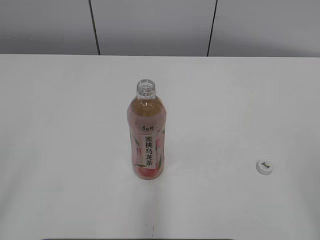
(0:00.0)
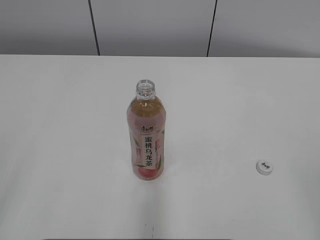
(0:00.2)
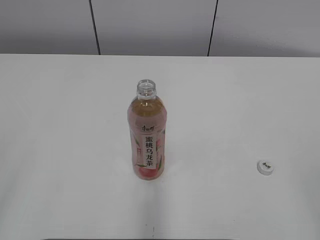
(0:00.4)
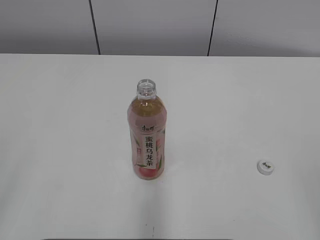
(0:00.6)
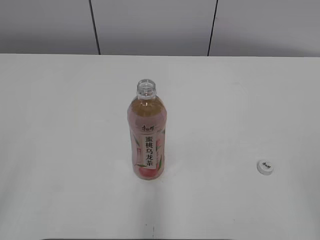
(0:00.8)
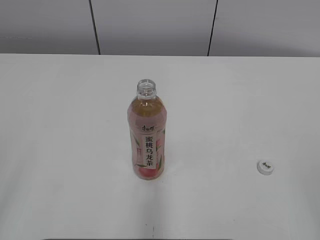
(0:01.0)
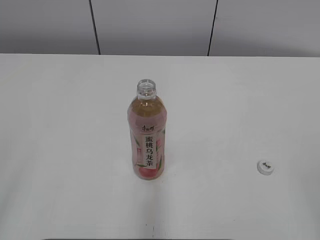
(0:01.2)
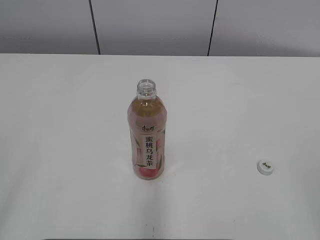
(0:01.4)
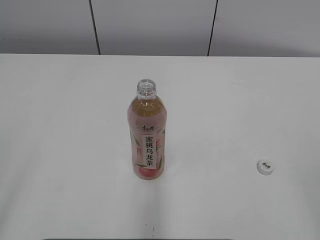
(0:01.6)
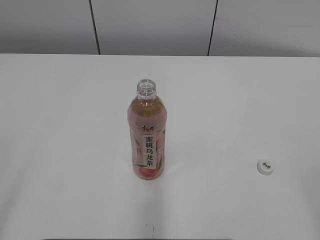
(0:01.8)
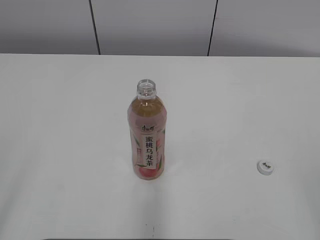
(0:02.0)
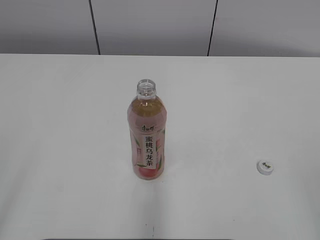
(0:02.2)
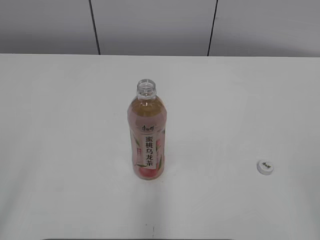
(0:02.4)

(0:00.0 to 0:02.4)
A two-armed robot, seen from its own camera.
0:01.2 - 0:02.4: The two grippers keep their place.

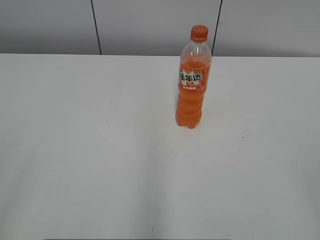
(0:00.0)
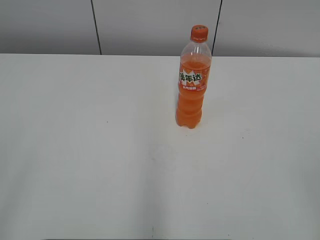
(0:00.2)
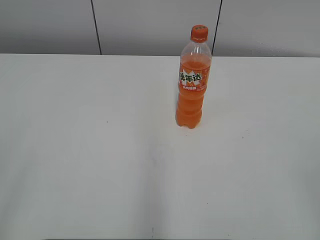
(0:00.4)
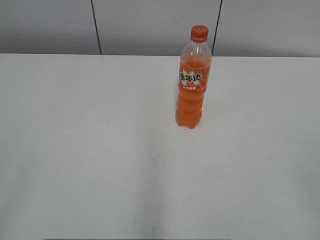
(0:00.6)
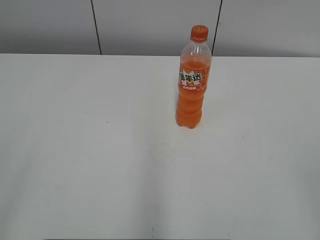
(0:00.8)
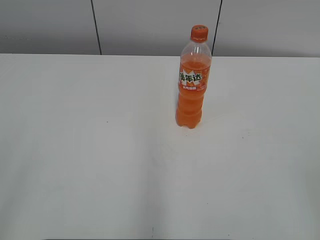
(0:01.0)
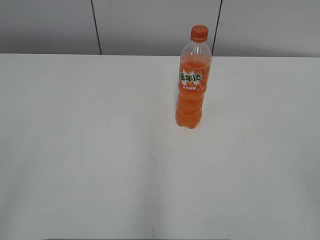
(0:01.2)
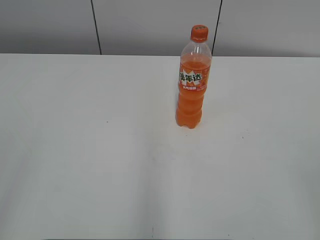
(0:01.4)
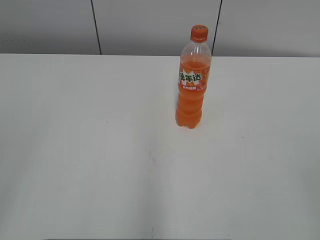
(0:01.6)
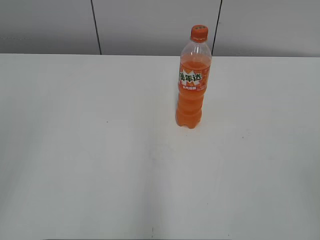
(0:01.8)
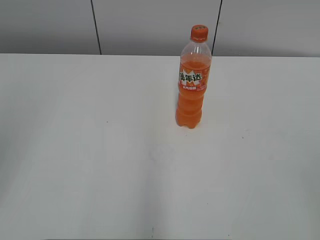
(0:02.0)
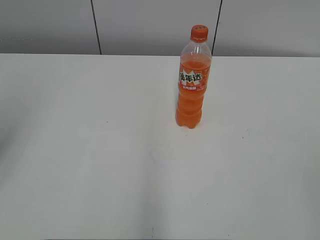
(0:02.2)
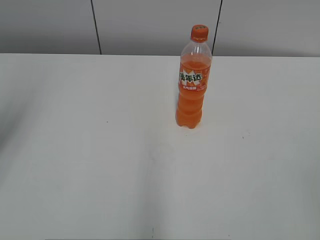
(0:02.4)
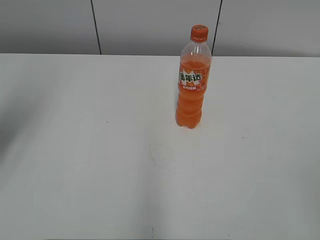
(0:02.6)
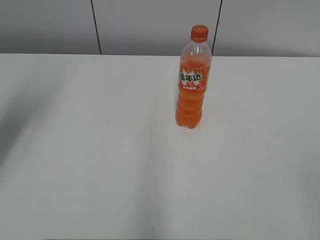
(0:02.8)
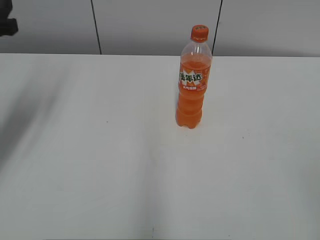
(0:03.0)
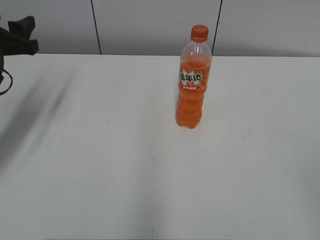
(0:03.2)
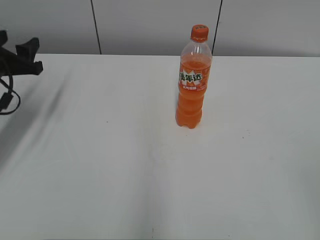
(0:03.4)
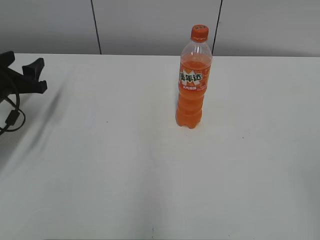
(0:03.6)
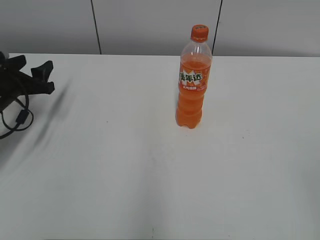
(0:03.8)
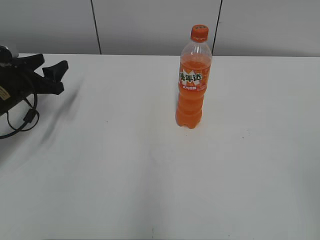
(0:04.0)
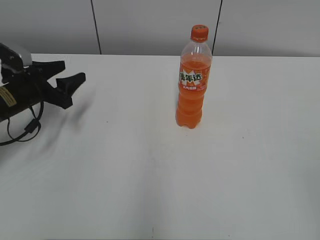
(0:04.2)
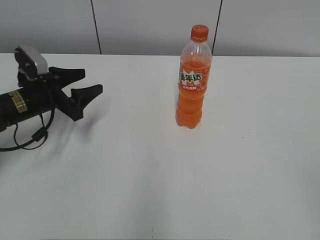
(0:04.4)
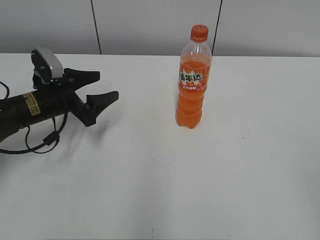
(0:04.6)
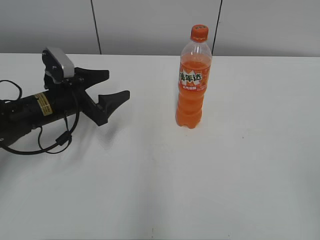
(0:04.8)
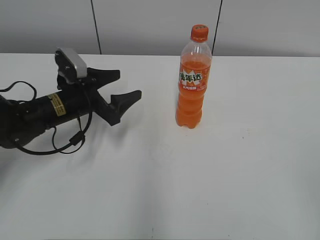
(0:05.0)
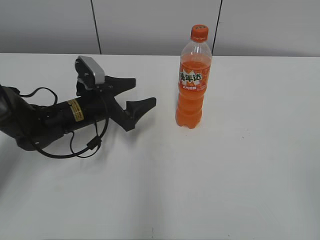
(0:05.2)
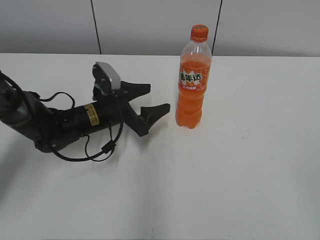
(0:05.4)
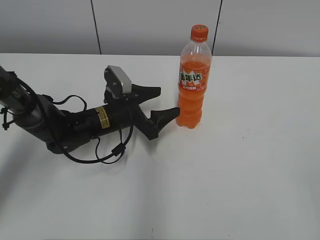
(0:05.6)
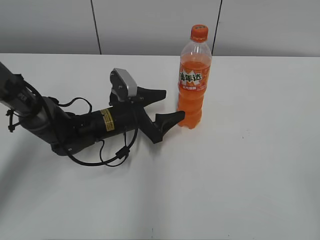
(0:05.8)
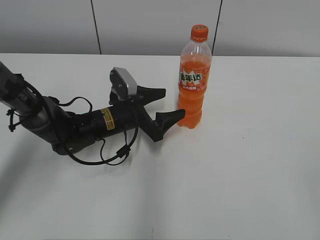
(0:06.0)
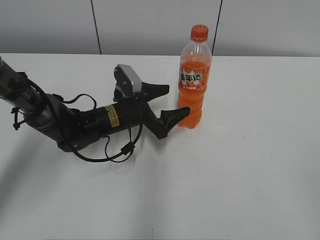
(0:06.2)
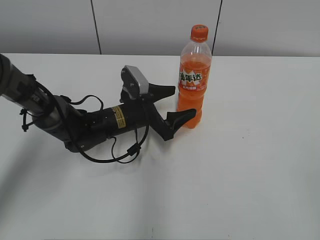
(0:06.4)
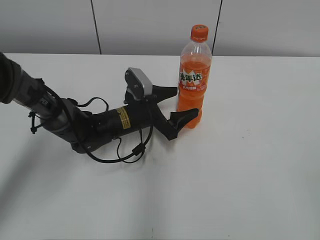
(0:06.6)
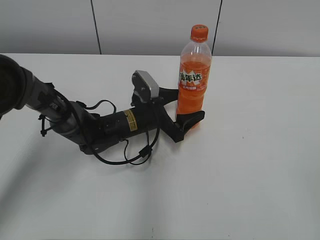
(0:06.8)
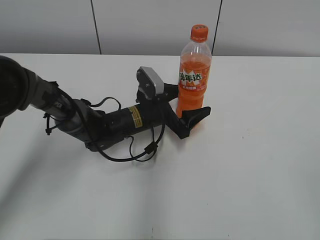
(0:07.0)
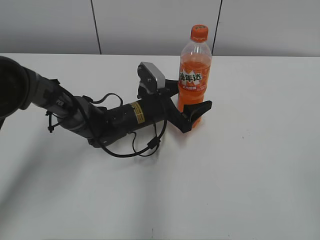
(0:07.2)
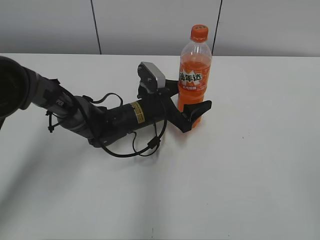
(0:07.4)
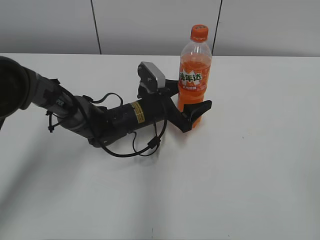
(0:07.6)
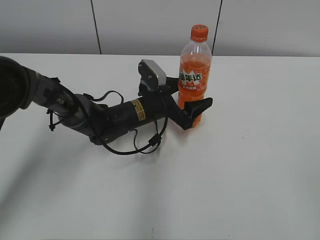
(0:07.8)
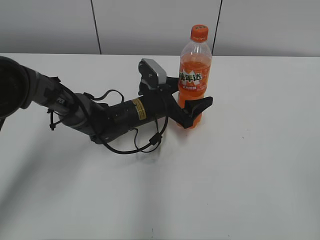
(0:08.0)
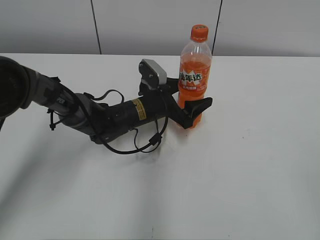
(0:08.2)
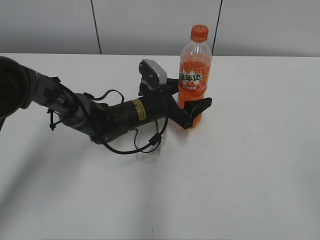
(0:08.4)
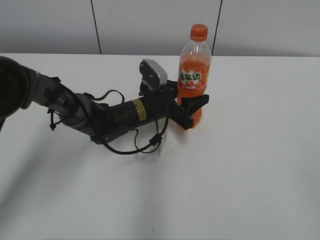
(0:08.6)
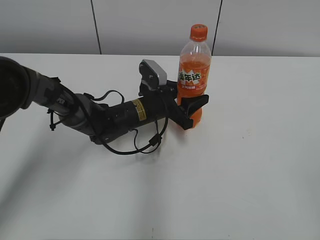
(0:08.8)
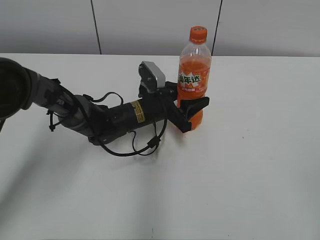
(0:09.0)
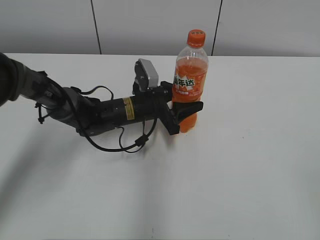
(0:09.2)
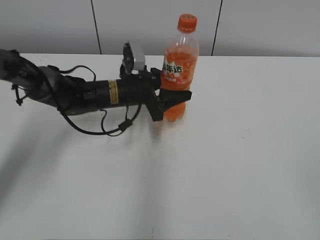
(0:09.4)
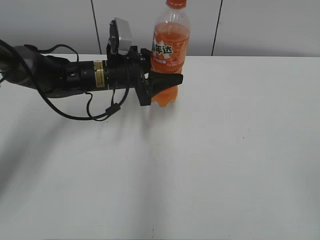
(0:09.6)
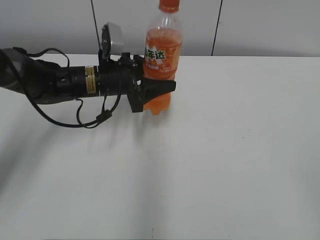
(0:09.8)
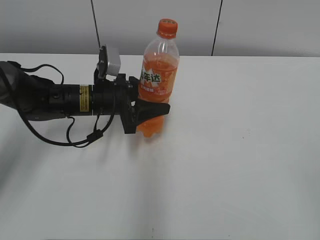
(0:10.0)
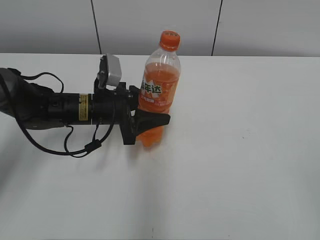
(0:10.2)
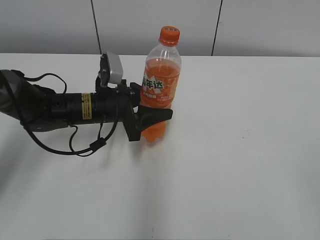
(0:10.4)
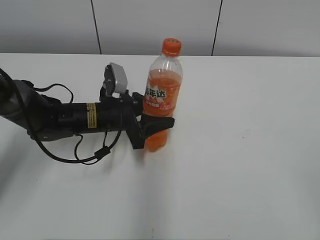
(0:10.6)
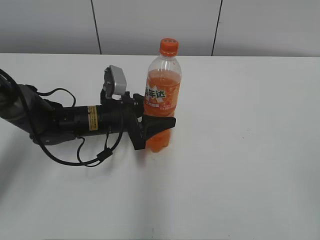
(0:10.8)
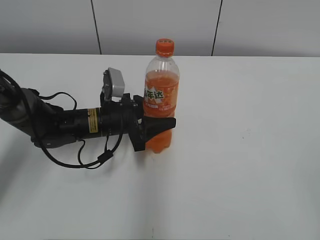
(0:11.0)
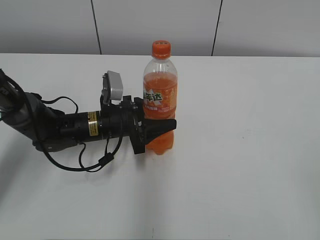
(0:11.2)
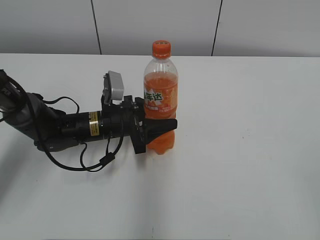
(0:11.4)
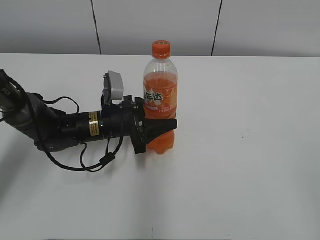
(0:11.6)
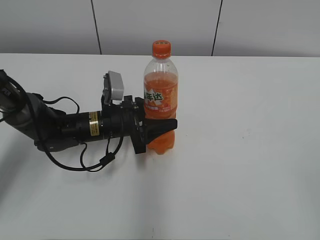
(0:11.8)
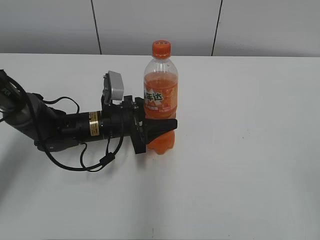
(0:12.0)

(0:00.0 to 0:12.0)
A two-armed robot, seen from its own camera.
Step, 0:00.0 - 0:08.6: Grab the Mirinda with the left hand.
Step, 0:08.8 - 0:11.8: Move the Mirinda from right to left.
0:01.6 - 0:03.0: The left gripper travels forward by roughly 30 cm.
0:03.0 - 0:04.4: The left gripper shifts approximately 15 cm downward.
0:04.4 - 0:06.0: The left gripper moves to the right, roughly 15 cm, and opens its fingers.
0:06.0 - 0:07.6: The left gripper shifts approximately 5 cm to the right.
0:07.6 - 0:09.0: The left gripper closes.
0:09.0 - 0:10.4: The left gripper moves to the left, roughly 10 cm.
0:10.4 - 0:12.0: The grippers stay close to where they were, moving slightly.

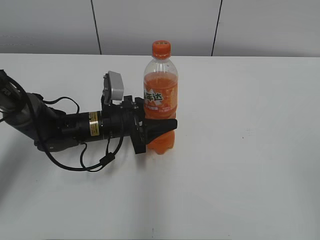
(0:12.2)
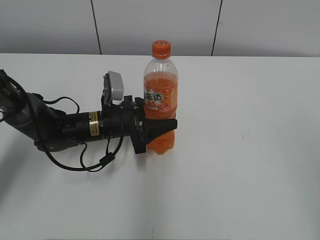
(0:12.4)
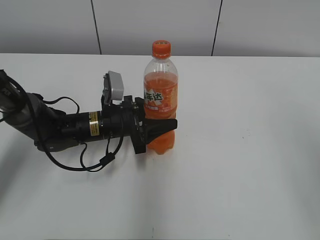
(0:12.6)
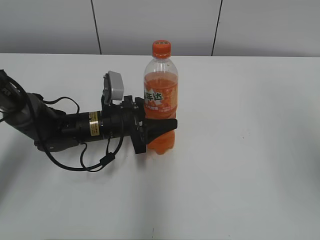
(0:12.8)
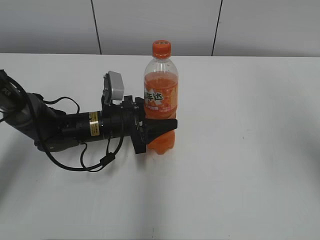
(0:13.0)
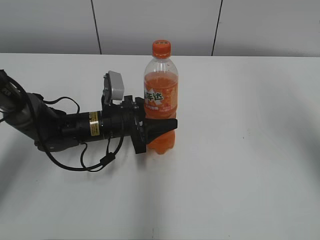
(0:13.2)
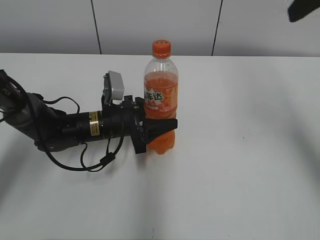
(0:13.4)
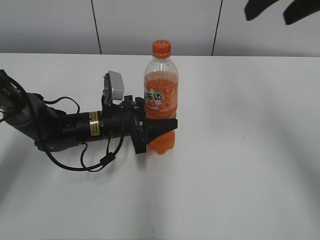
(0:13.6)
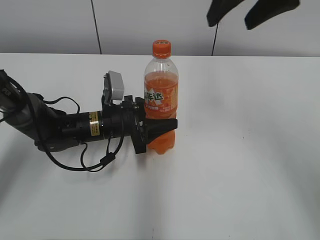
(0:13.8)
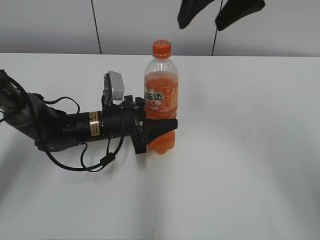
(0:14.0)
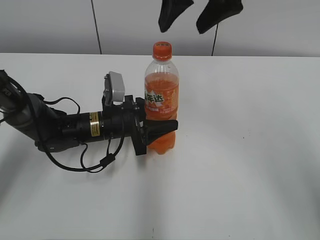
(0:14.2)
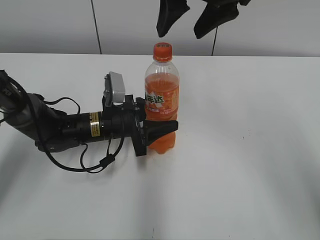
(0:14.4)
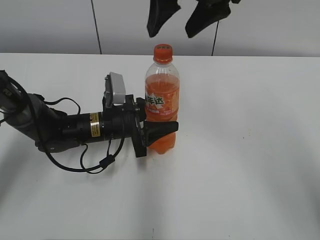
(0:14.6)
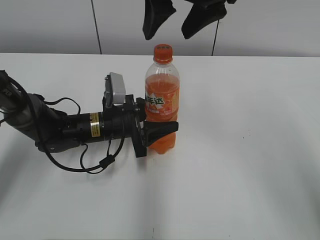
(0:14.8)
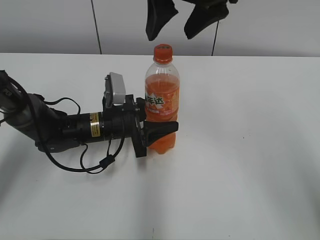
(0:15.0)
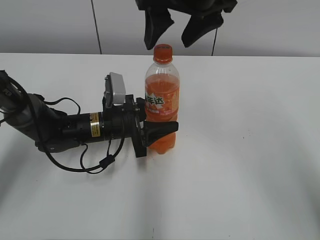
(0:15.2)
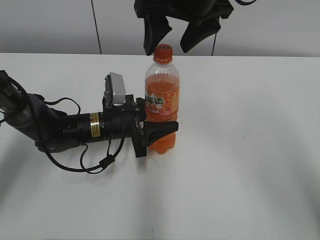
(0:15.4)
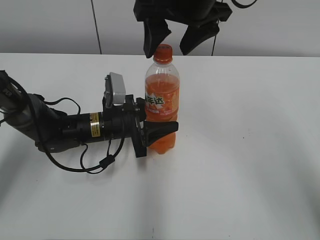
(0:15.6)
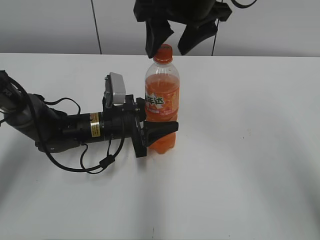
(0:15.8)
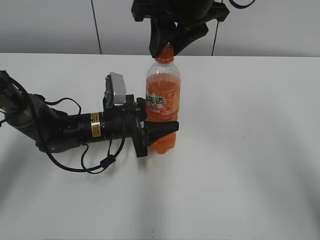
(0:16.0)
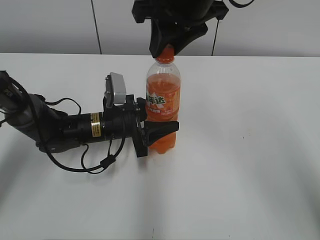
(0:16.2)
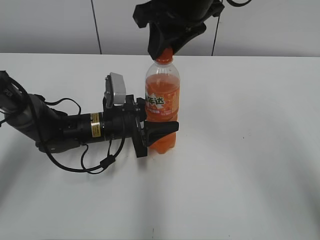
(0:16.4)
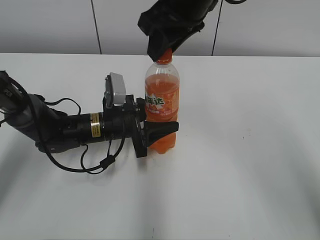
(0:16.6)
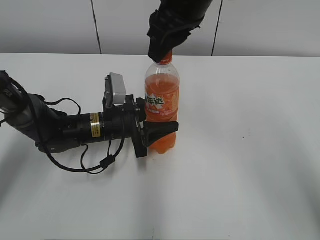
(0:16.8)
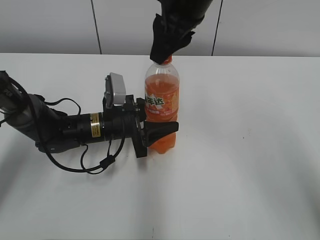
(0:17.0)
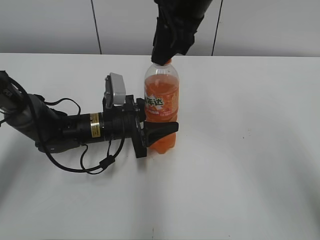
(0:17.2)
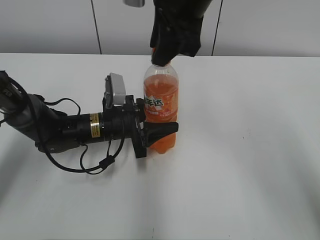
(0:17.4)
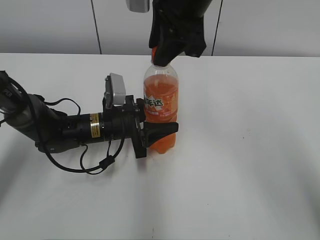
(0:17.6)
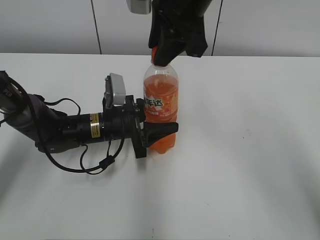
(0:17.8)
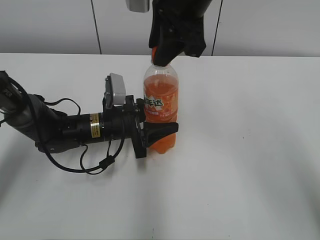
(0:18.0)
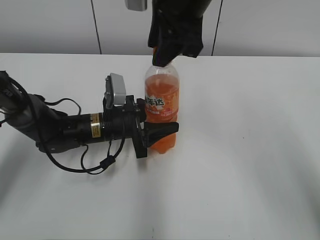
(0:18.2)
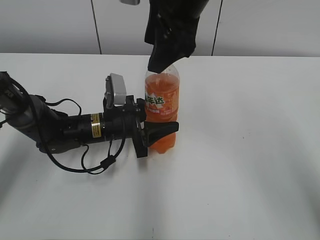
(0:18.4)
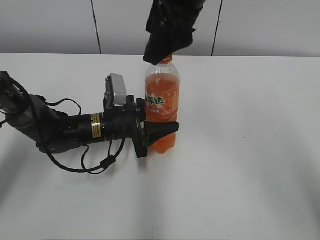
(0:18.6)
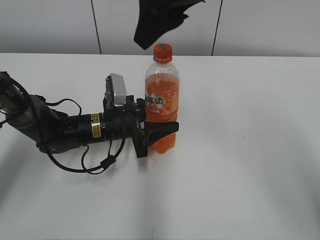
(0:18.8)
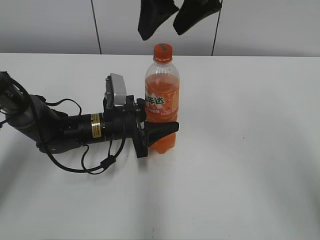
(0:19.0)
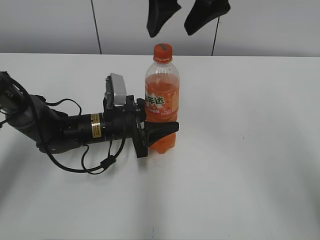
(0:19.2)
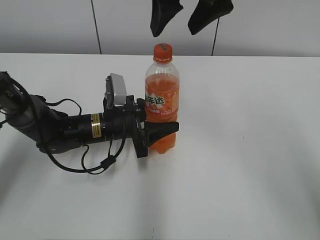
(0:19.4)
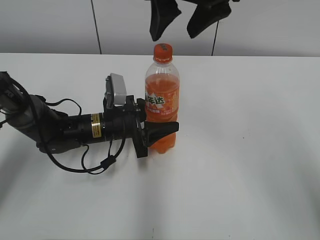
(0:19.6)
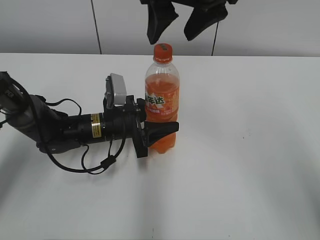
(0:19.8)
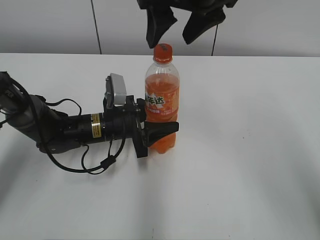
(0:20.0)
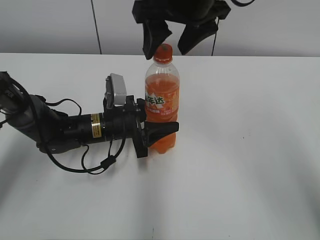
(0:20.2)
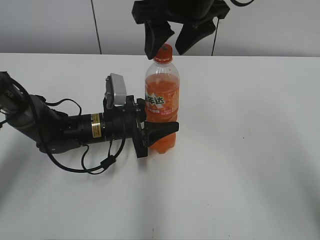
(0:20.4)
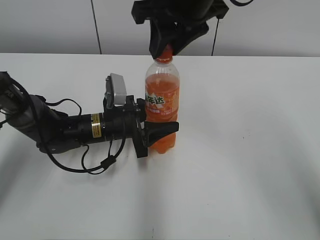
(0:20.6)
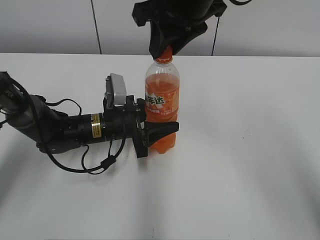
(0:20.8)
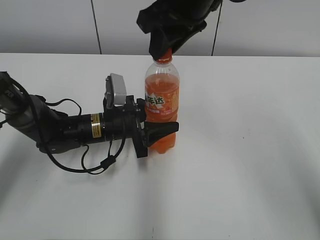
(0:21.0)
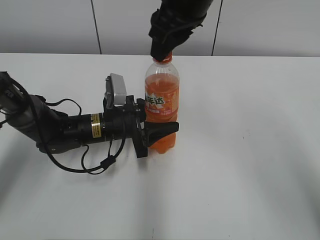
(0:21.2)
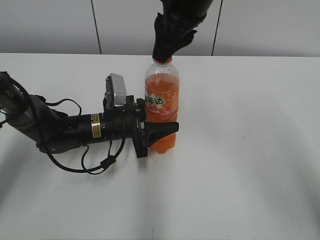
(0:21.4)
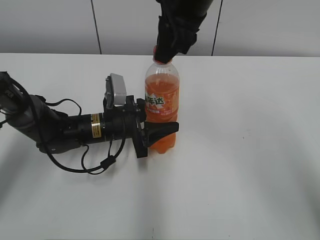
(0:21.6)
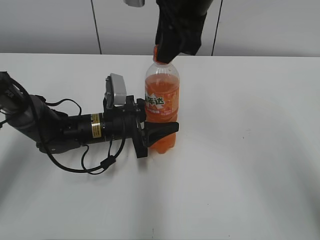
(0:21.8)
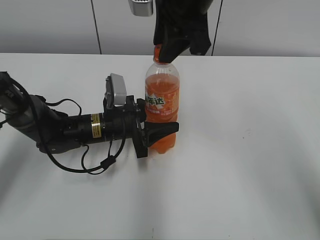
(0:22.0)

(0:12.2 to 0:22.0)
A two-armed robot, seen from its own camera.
0:12.2 - 0:13.6: The right gripper is displaced forward by about 30 cm.
0:13.6 - 0:15.0: The right gripper is displaced to the left by some 15 cm.
0:15.0 - 0:16.4: The right gripper closes.
0:17.8 - 0:19.2: The right gripper opens up.
0:19.2 - 0:20.6: The right gripper closes up.
